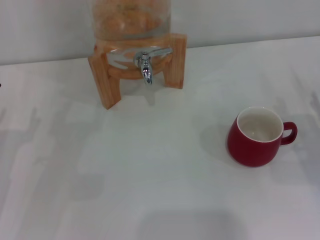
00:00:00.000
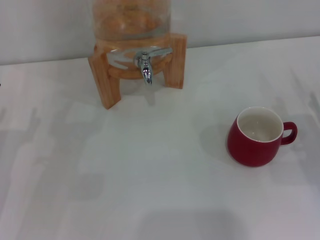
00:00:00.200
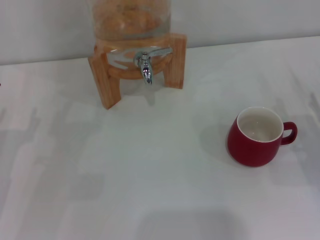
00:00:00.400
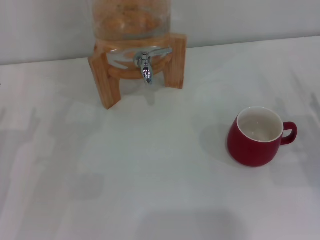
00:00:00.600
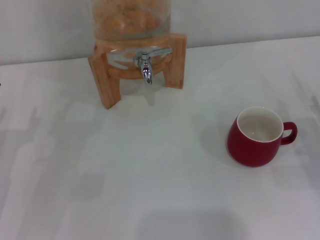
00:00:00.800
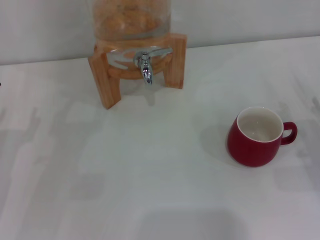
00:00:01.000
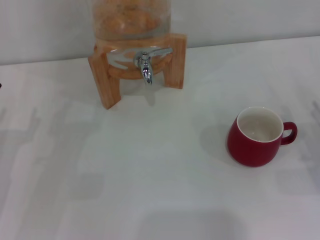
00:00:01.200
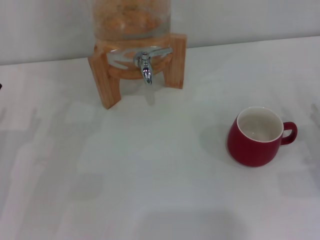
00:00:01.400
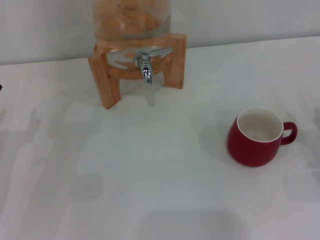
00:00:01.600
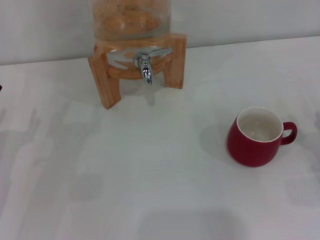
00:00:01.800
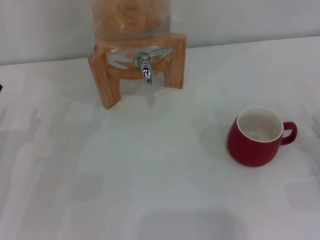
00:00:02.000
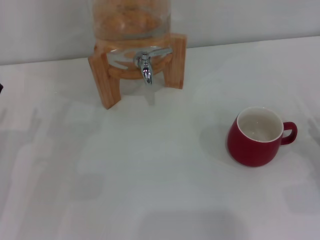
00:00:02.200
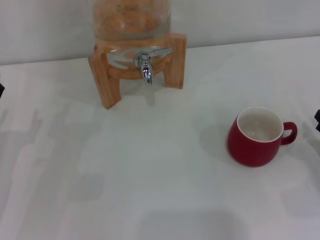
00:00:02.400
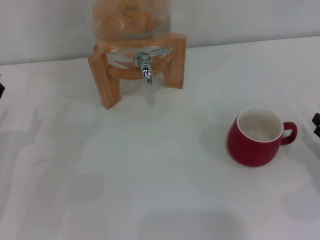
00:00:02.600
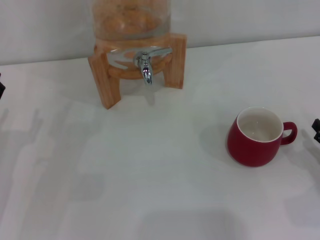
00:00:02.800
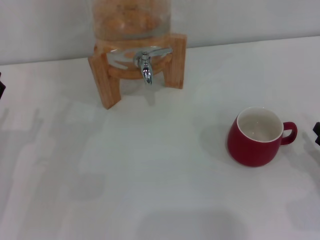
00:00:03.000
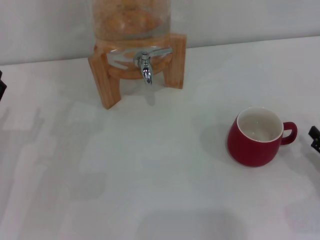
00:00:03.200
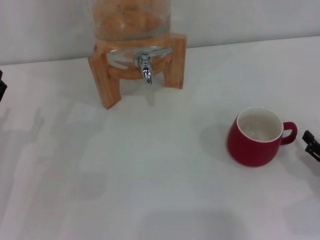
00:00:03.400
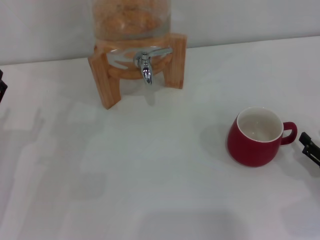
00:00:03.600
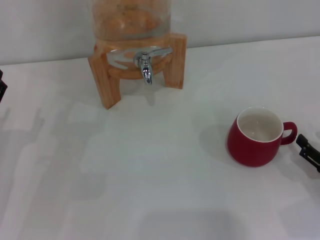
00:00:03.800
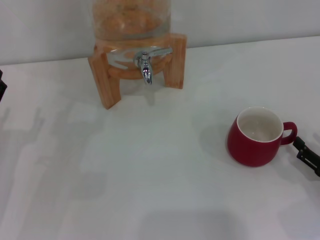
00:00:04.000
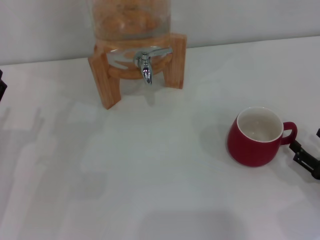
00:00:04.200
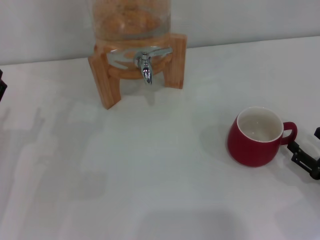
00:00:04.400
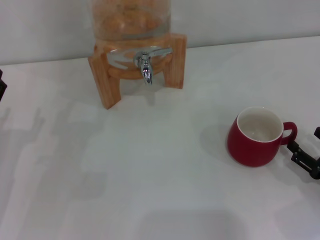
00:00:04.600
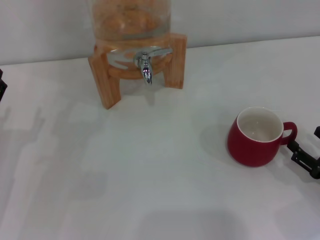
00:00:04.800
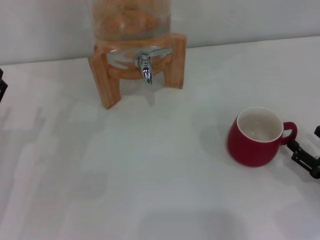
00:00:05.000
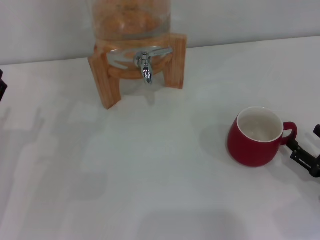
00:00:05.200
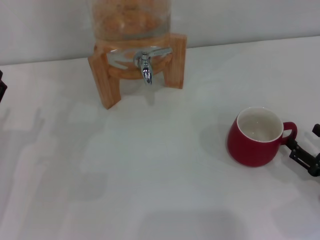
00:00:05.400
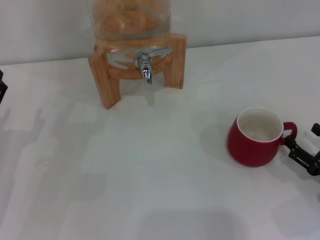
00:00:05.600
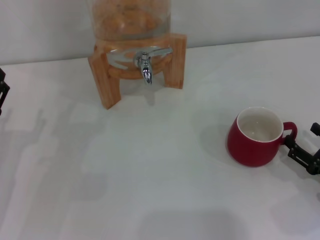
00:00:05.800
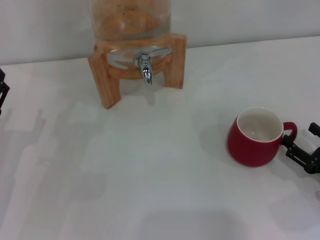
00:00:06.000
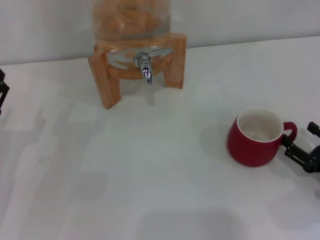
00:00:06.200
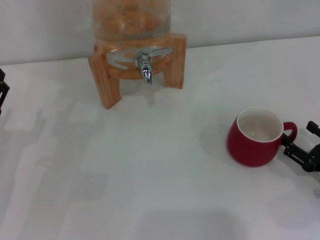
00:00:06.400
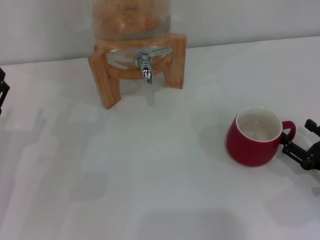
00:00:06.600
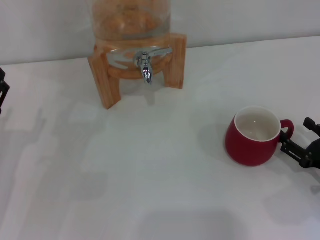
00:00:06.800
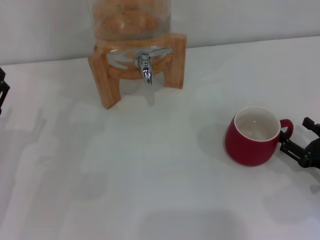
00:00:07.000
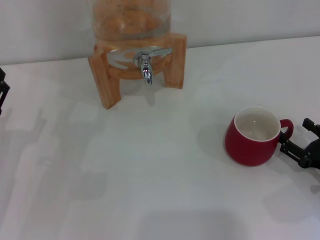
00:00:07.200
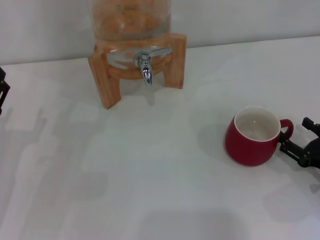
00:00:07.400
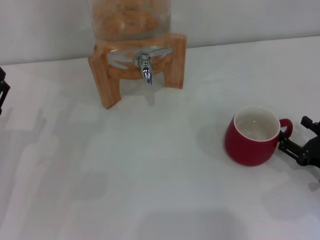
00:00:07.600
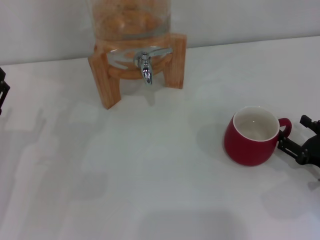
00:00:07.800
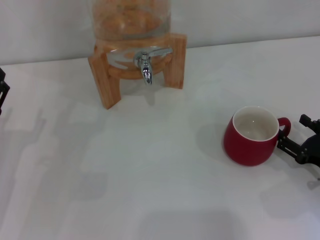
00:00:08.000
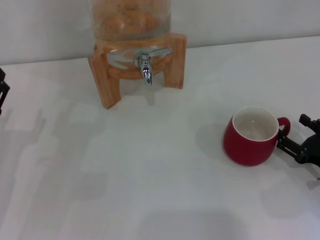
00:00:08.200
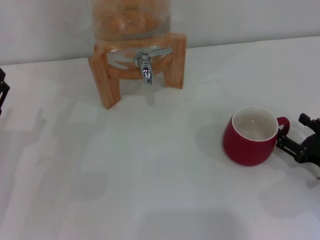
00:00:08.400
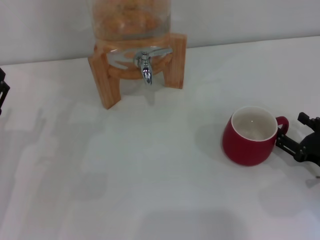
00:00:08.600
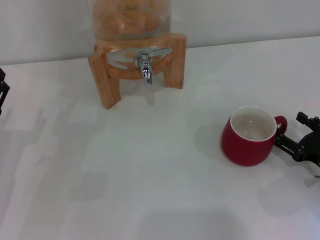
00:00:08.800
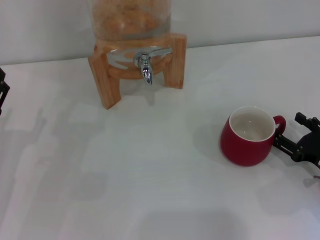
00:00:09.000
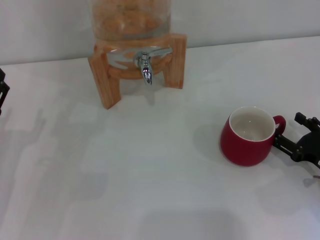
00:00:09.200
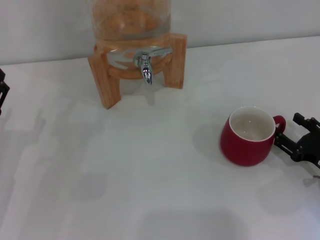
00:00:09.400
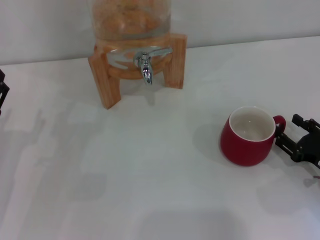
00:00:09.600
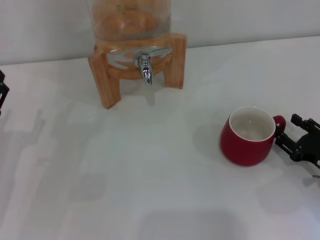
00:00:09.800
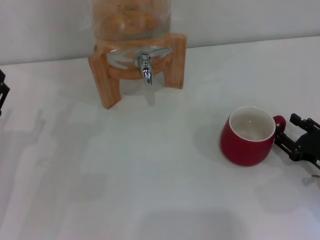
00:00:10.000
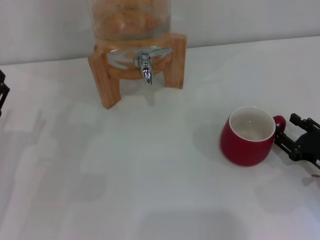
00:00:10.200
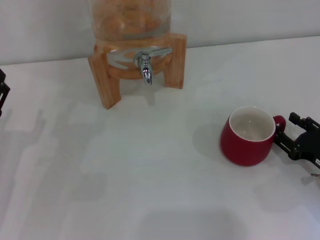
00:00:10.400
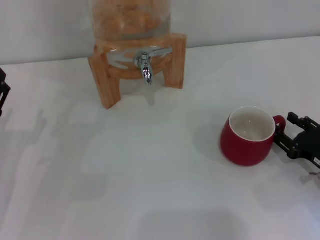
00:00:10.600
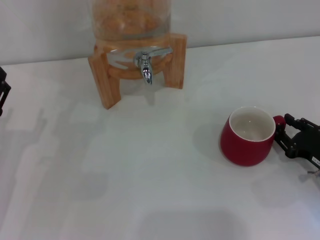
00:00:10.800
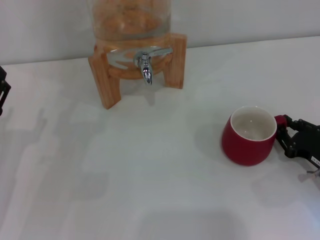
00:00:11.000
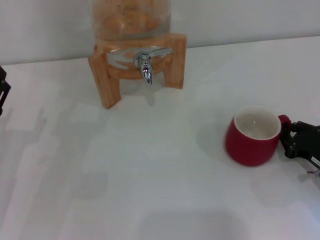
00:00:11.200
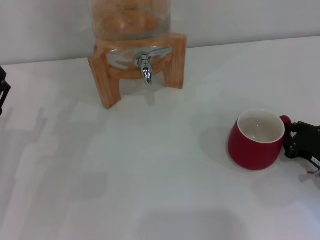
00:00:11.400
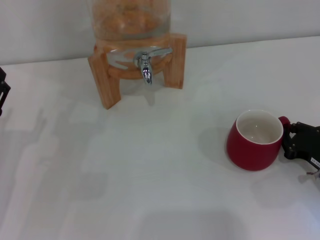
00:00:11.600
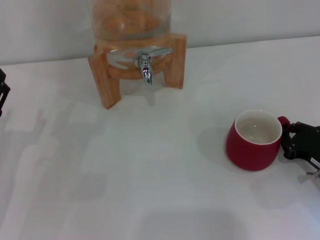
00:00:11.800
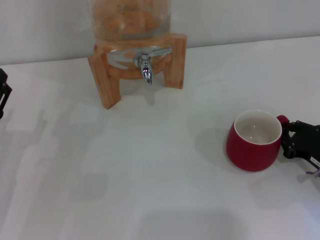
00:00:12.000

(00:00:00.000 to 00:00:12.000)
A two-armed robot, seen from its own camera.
Task of the whole recording: the right gripper pick up the red cup and place it horizontally under the faucet, the left gripper turn on the faucet to fill the cup, and then turn off the faucet.
00:00:03.000 - 00:00:04.400: The grippers move only a little.
00:00:04.400 - 00:00:06.000: Neither gripper changes place.
00:00:06.000 - 00:00:07.600: The grippers make only small movements.
00:00:07.600 - 00:00:09.000: The two grippers keep their place.
00:00:09.000 - 00:00:10.400: Both grippers stay put.
00:00:10.400 - 00:00:12.000: The right gripper closes its fingers.

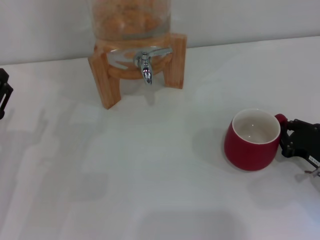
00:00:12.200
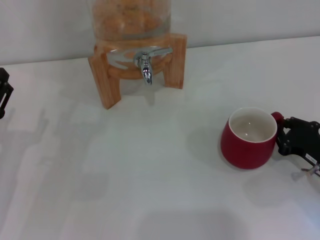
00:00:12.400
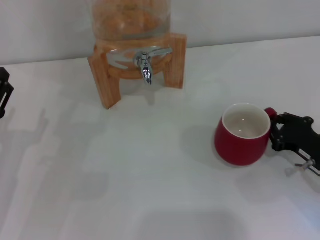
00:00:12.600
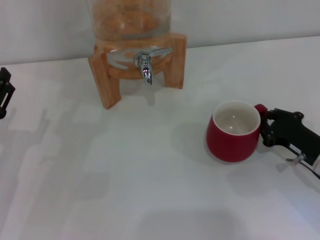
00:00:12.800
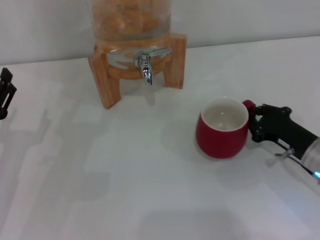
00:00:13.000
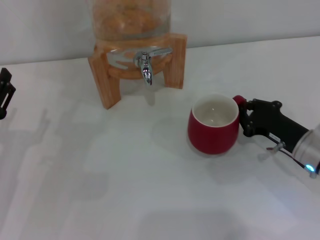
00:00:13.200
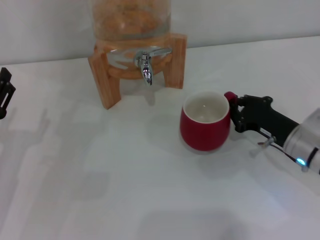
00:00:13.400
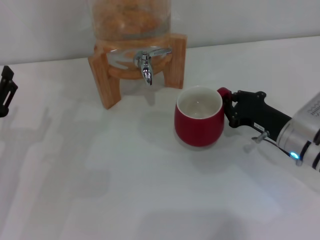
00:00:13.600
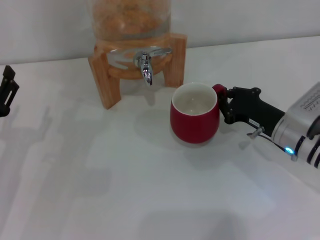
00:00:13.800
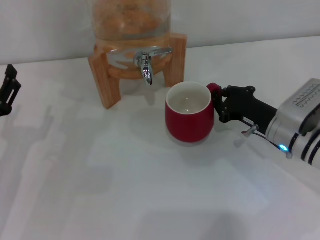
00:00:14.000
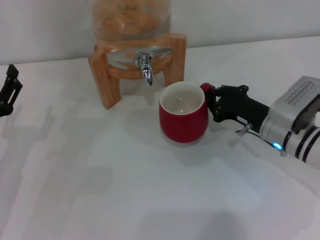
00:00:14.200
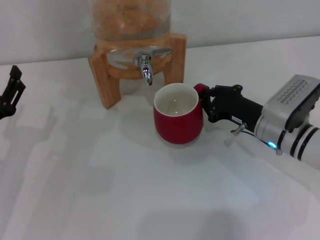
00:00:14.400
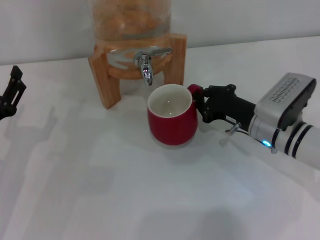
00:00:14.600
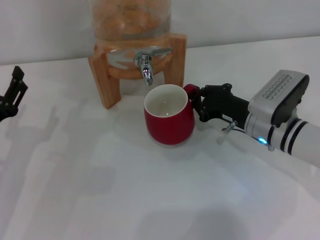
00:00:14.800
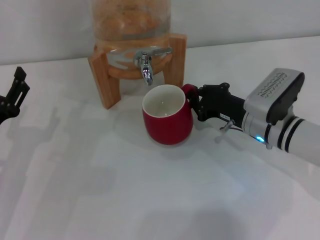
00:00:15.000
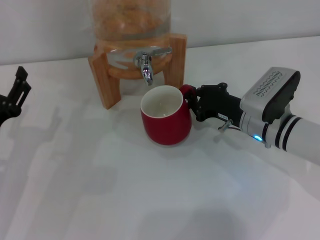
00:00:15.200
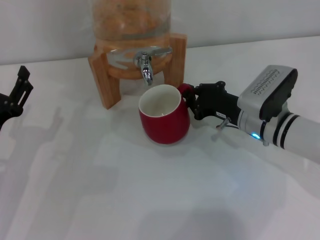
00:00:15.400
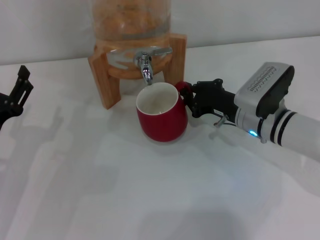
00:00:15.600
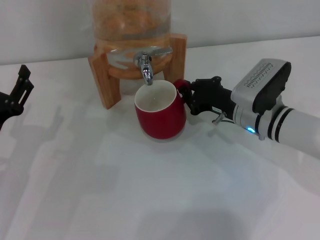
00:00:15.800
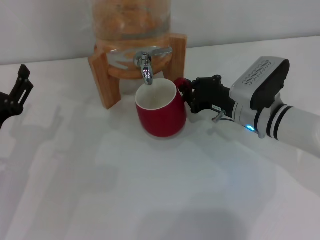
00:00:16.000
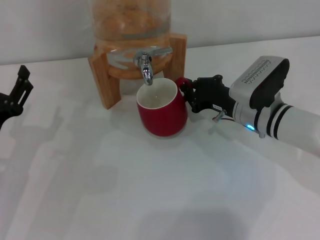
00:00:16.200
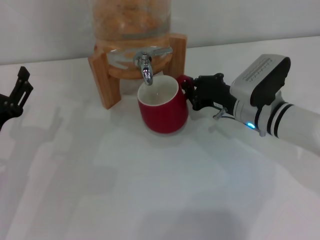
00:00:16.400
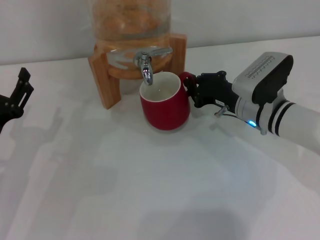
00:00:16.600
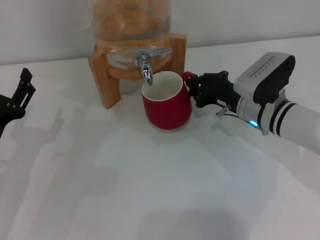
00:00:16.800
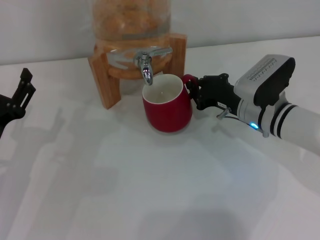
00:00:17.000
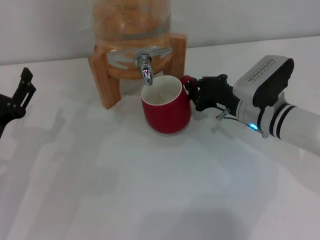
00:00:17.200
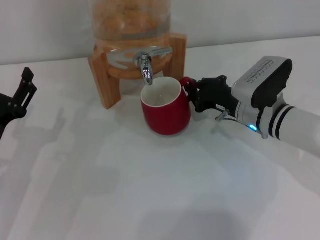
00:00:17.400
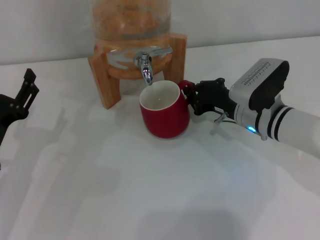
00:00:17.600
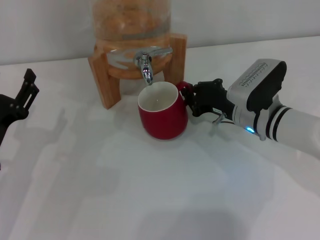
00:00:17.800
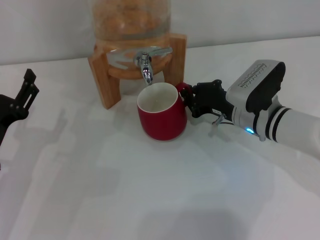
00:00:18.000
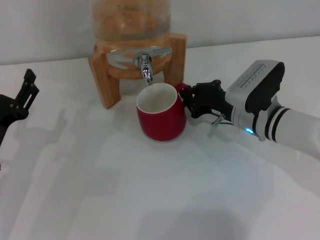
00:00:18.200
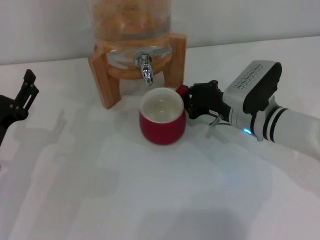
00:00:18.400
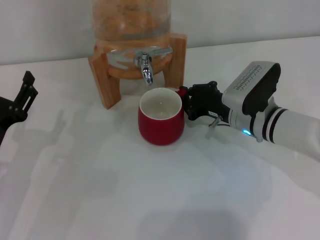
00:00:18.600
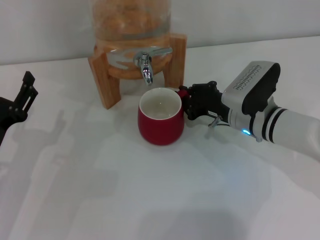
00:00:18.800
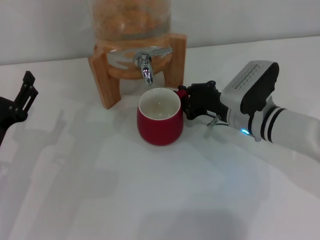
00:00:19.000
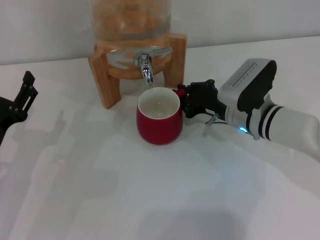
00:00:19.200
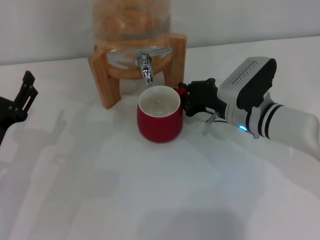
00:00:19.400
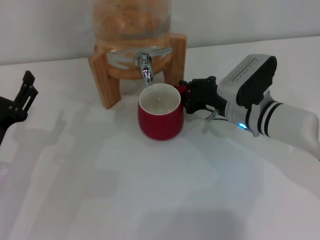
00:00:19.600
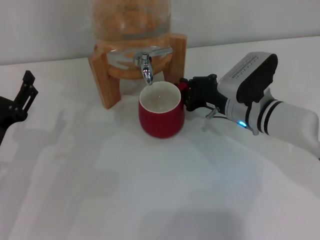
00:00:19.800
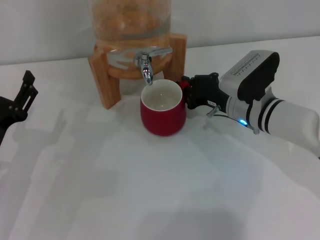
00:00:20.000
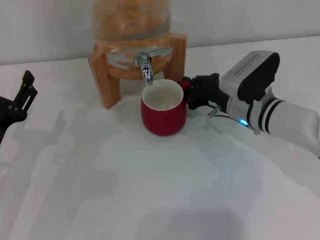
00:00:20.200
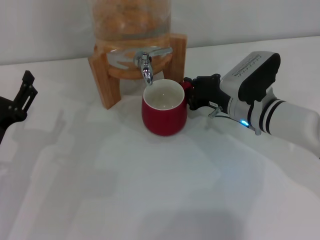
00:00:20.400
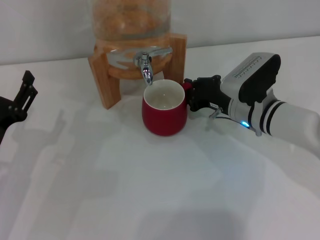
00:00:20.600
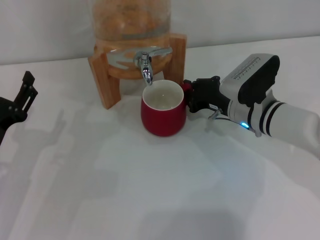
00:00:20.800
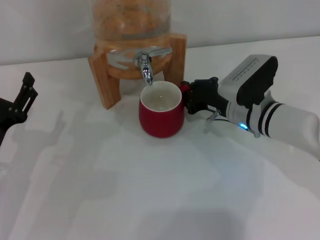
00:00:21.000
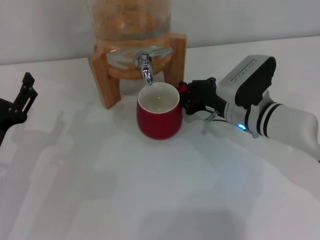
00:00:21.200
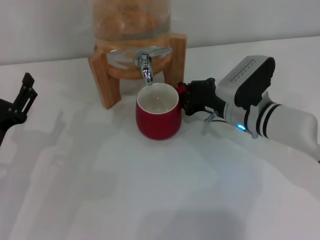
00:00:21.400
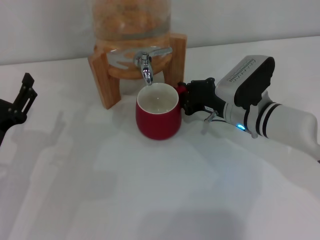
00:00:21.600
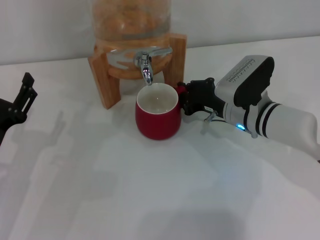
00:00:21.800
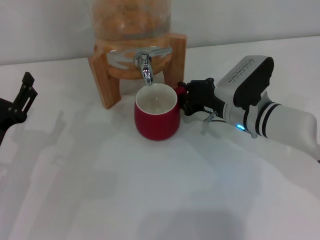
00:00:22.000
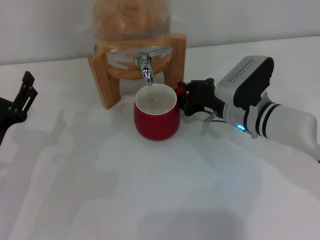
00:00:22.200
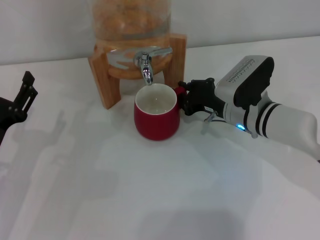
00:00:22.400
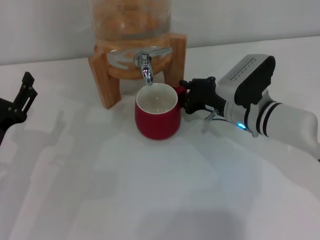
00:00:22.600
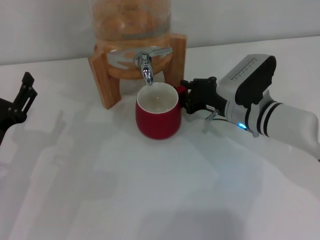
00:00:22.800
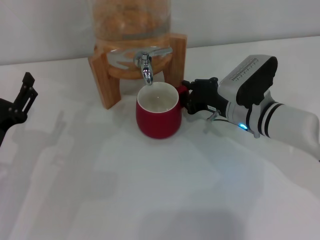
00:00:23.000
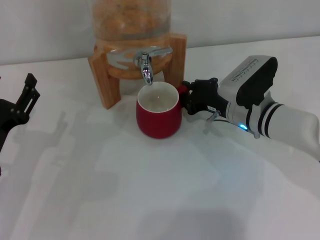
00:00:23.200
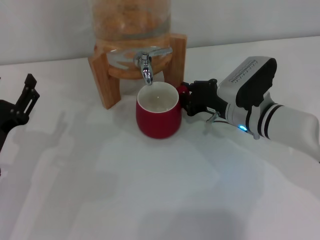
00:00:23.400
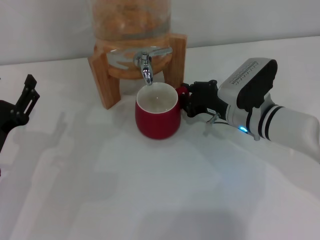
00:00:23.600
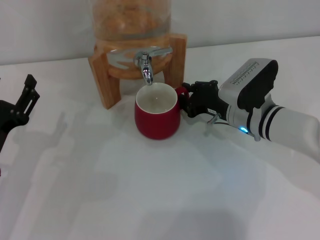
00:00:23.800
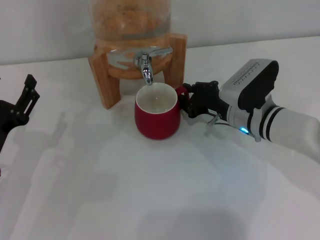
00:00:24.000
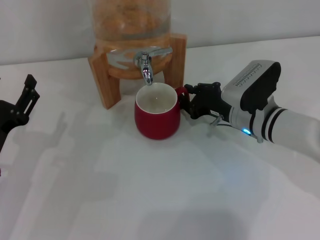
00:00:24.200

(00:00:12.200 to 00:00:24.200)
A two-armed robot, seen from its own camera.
Task of the whole recording: the right gripper pick up the red cup and place it horizontally under the faucet, the left gripper turn on the faucet to fill the cup, and then turn off the faucet.
00:00:12.200 - 00:00:13.800: The right gripper moves forward and to the left, roughly 10 cm.
00:00:13.800 - 00:00:15.200: The right gripper moves approximately 5 cm.
00:00:15.200 - 00:00:16.600: The grippers stay close to where they were, moving slightly.
00:00:16.600 - 00:00:18.200: Both grippers stay put.
00:00:18.200 - 00:00:19.800: The grippers make only small movements.
00:00:19.800 - 00:00:24.200: Neither gripper changes place.
